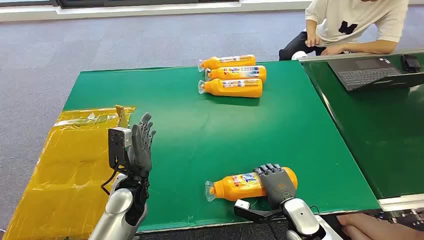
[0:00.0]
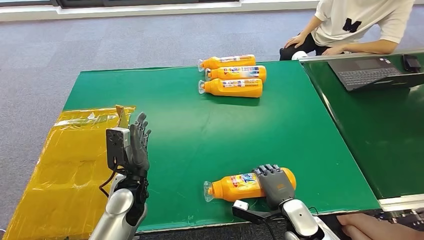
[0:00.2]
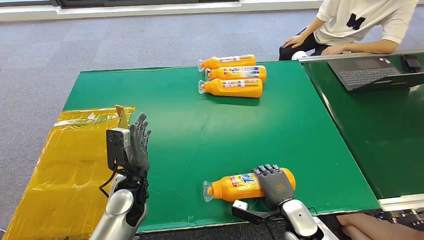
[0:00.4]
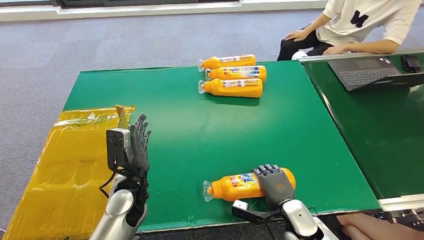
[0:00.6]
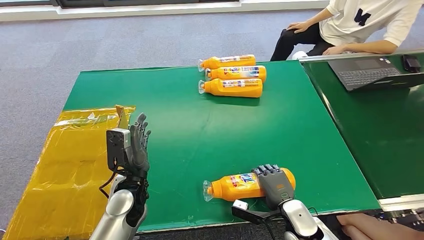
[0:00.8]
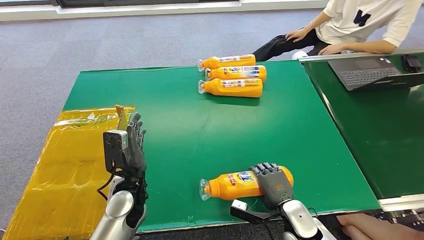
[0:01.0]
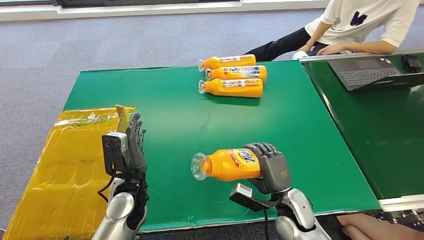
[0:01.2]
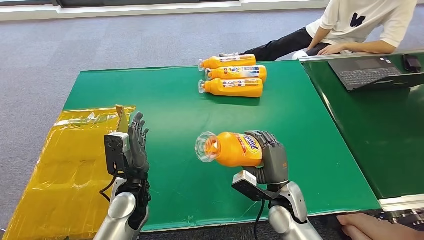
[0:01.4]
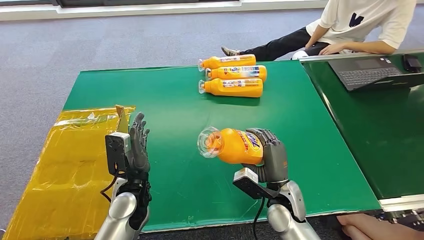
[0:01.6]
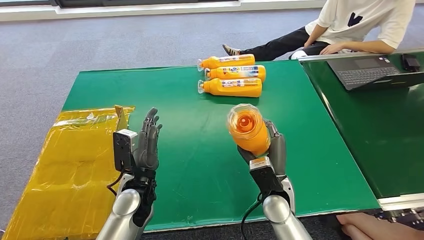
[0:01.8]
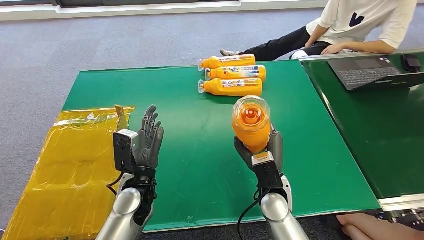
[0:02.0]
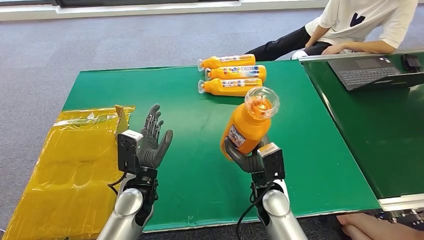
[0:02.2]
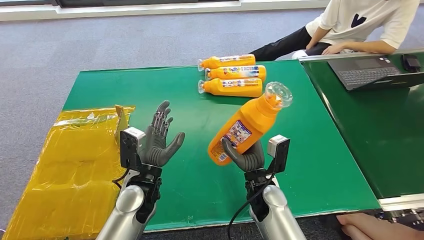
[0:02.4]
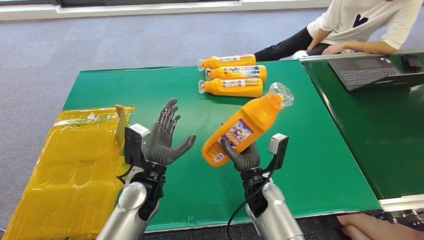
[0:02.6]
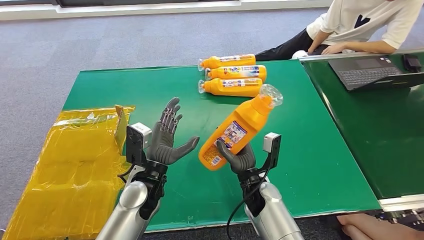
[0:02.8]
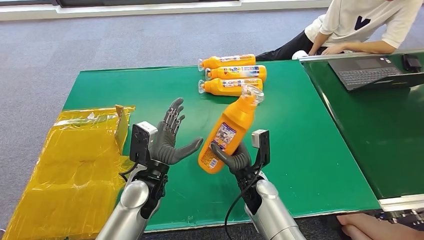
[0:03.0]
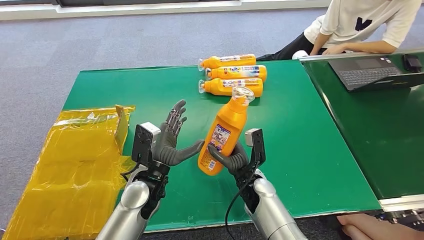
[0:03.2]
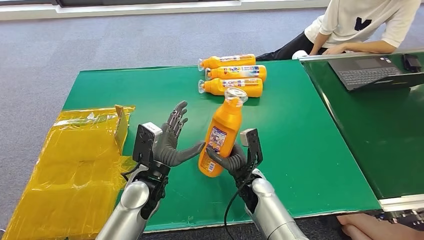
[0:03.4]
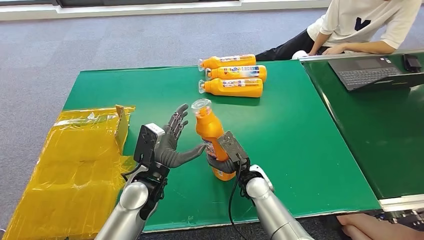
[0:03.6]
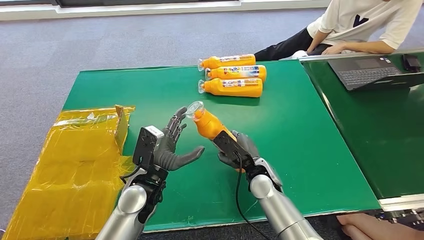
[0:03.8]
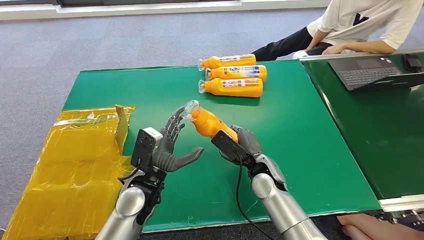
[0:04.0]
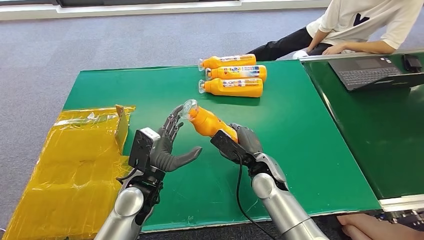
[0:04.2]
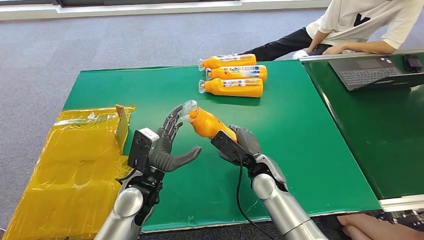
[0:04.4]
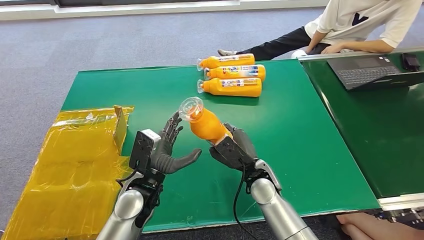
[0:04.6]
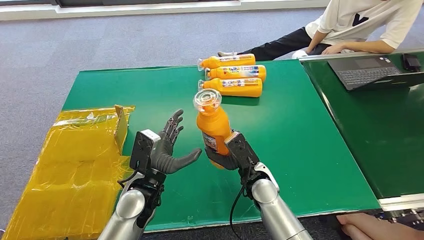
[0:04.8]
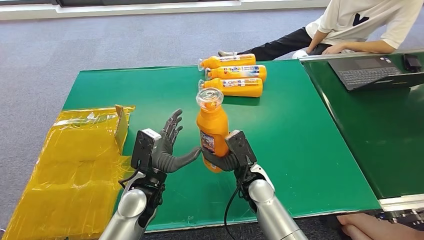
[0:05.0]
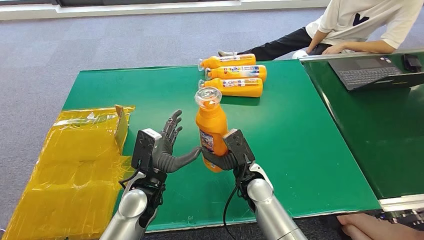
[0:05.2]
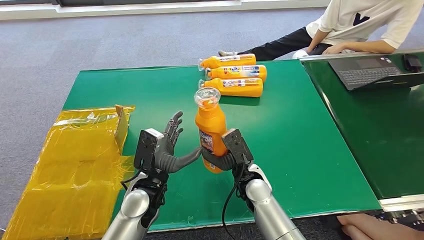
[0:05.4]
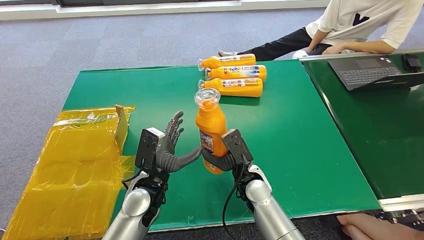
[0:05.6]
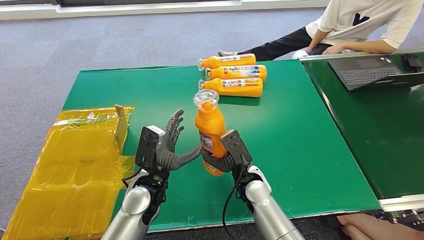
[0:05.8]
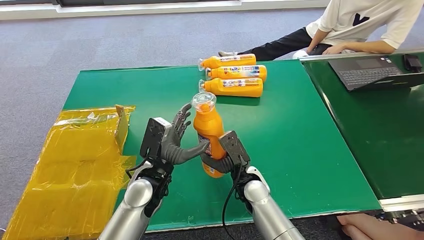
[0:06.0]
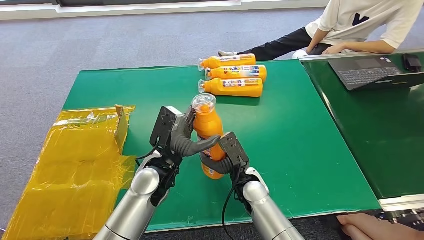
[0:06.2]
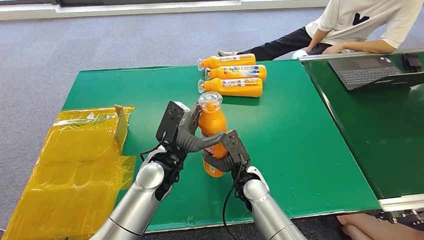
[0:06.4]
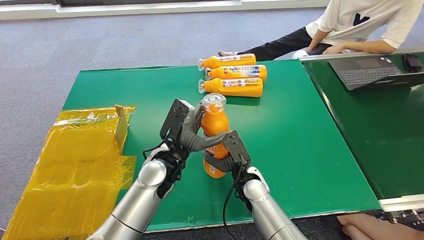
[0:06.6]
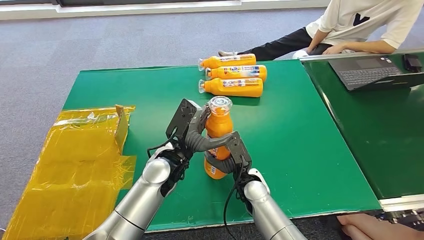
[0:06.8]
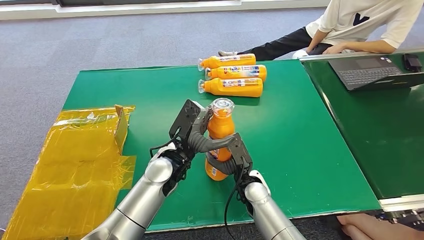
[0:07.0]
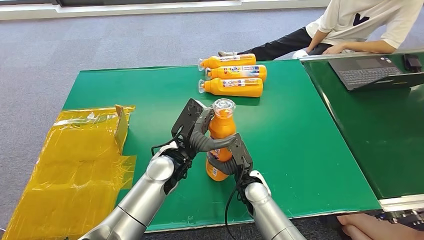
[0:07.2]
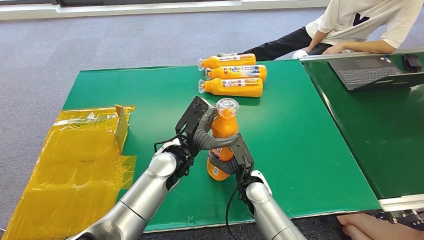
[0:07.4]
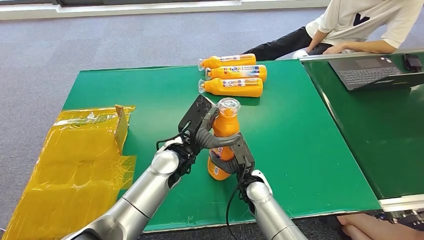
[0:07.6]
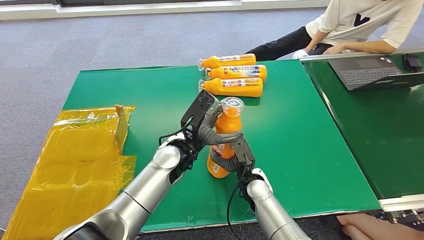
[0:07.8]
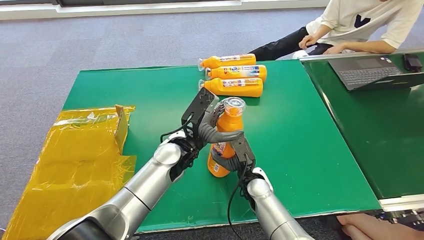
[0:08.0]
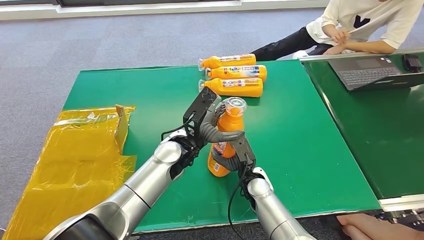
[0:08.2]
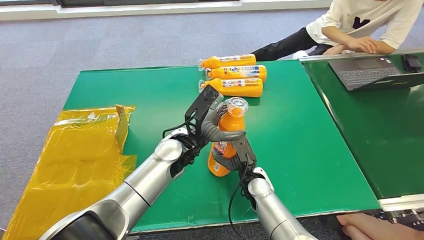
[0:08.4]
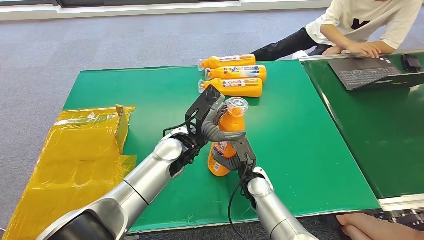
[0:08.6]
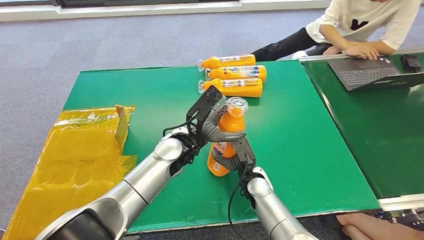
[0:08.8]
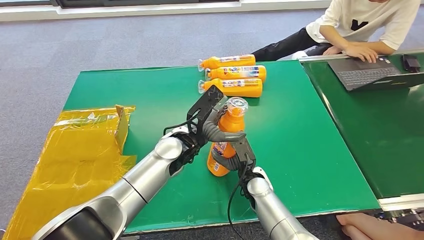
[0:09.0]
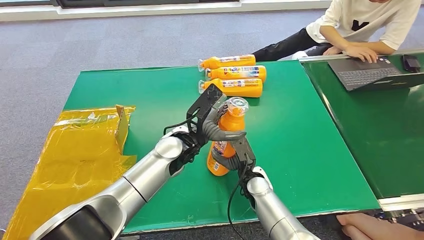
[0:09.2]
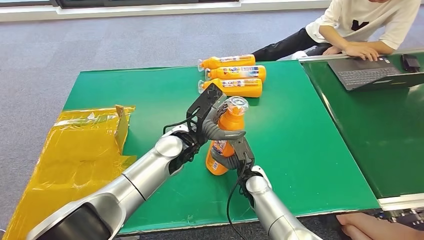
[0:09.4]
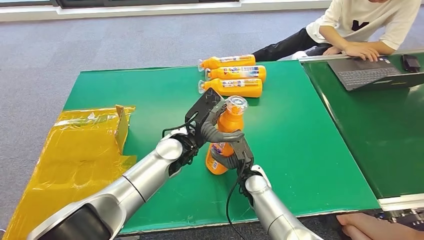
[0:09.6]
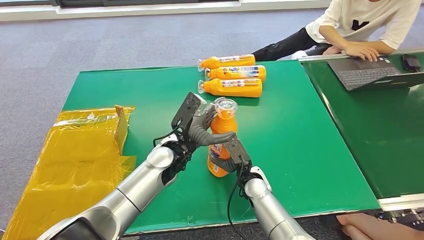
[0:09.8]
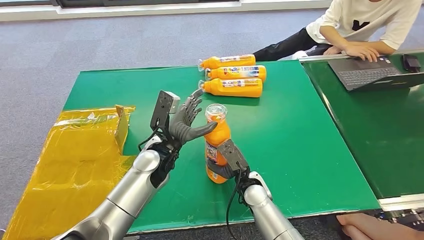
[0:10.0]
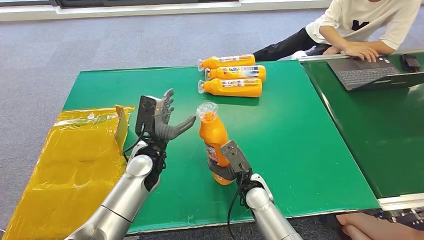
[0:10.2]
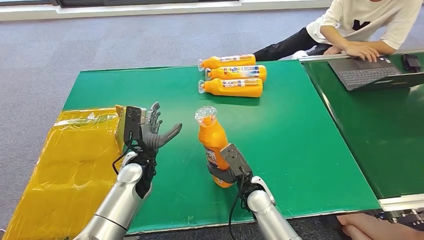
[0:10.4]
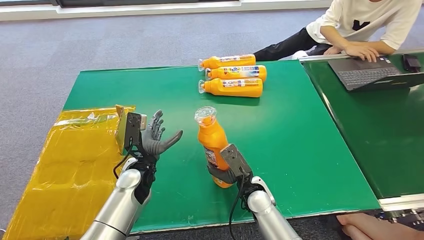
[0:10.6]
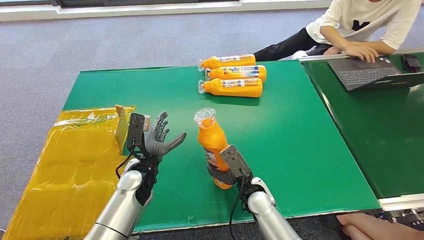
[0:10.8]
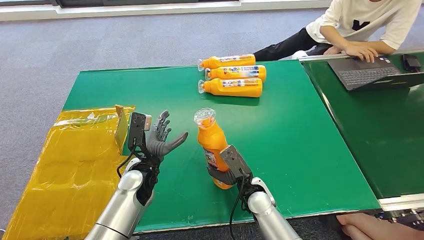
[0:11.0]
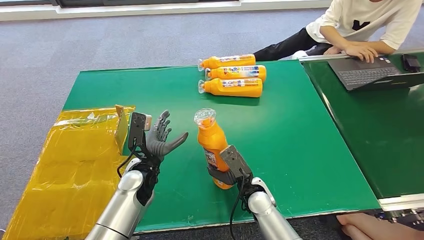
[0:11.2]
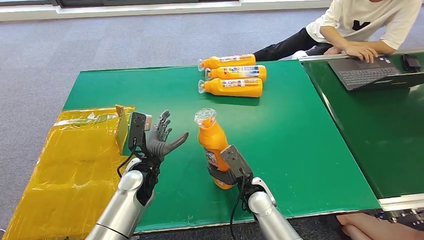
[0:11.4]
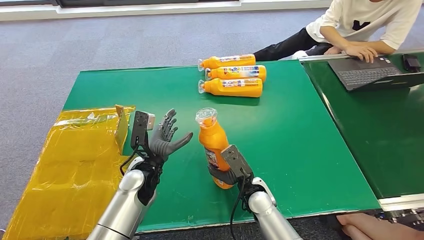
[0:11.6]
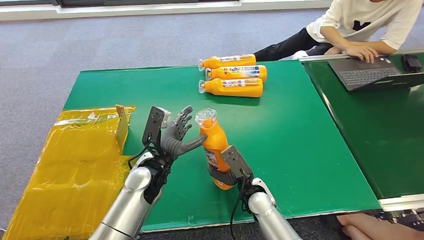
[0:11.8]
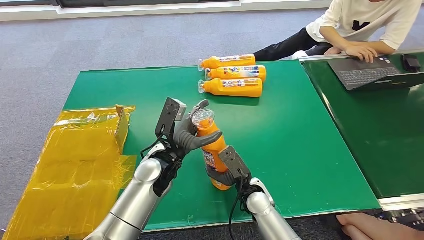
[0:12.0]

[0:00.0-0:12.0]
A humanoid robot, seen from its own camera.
Step, 0:00.0 to 0:01.4: Pick up the bottle from the table.
0:01.6 to 0:03.0: The left hand shifts by roughly 5 cm, while the right hand is displaced to the left by roughly 5 cm.
0:03.0 to 0:04.4: The right hand shifts by roughly 5 cm.
0:04.4 to 0:06.0: The right hand moves about 5 cm.
0:06.0 to 0:07.6: The left hand heads to the right, covering approximately 5 cm.
0:07.6 to 0:09.0: The hands stay close to where they were, moving slightly.
0:09.0 to 0:10.4: The left hand travels to the left and downward by some 15 cm.
0:10.4 to 0:12.0: The left hand travels to the right by about 5 cm.

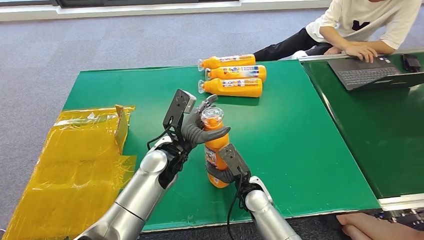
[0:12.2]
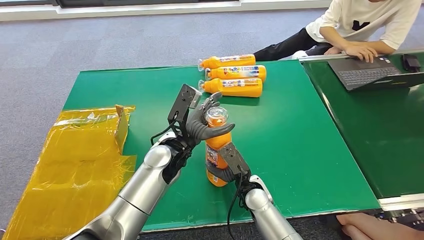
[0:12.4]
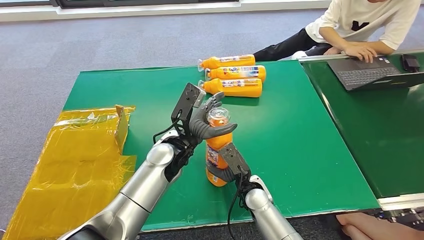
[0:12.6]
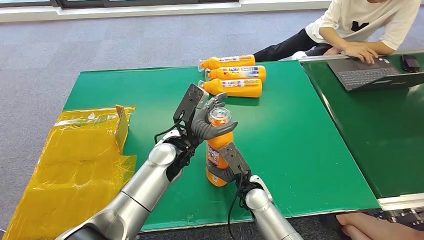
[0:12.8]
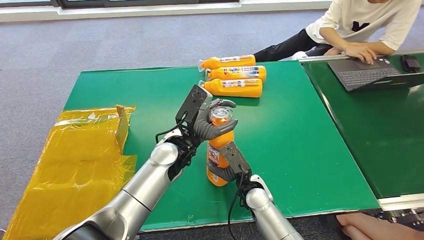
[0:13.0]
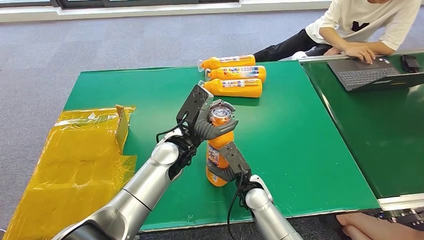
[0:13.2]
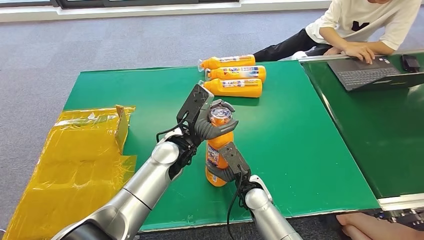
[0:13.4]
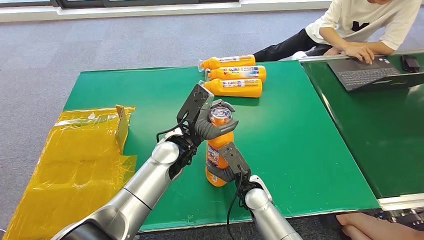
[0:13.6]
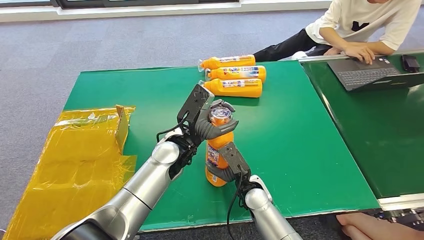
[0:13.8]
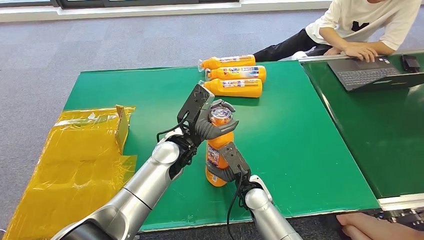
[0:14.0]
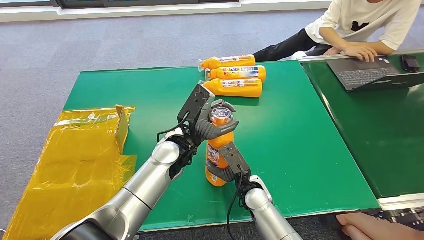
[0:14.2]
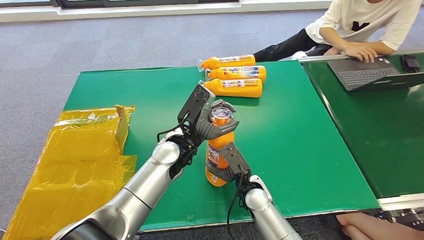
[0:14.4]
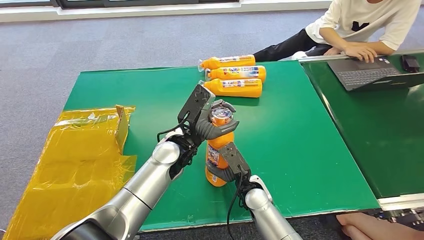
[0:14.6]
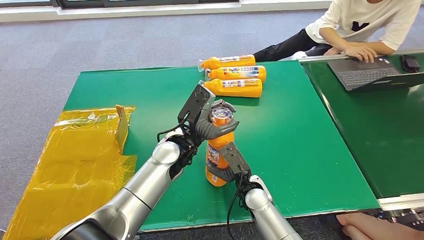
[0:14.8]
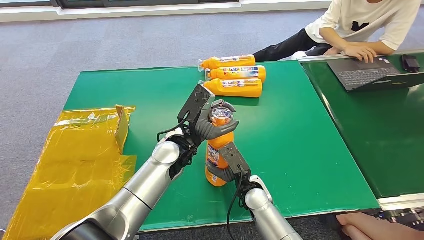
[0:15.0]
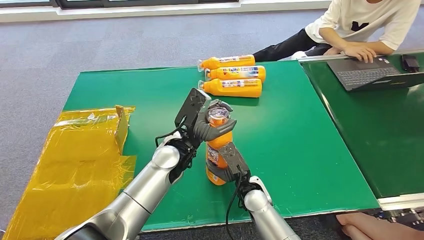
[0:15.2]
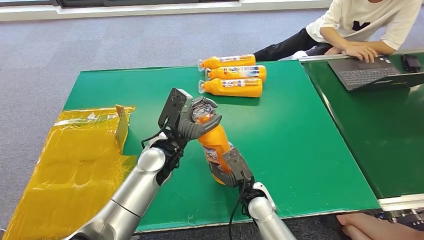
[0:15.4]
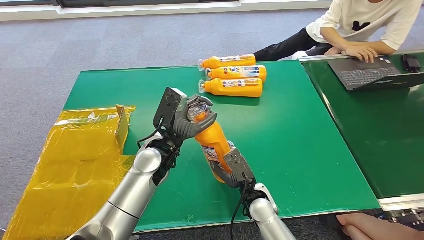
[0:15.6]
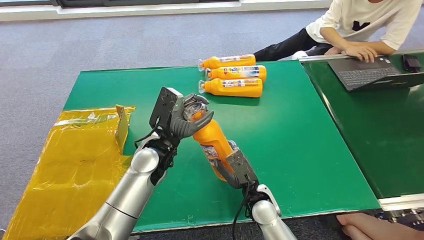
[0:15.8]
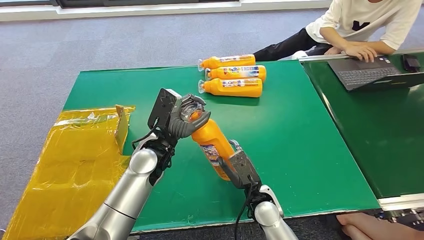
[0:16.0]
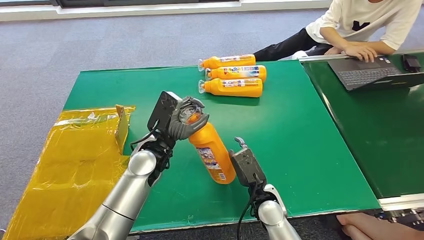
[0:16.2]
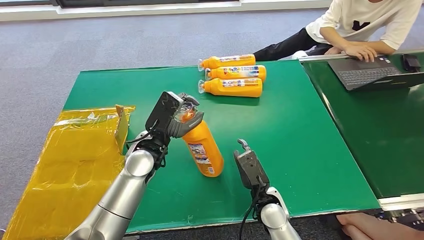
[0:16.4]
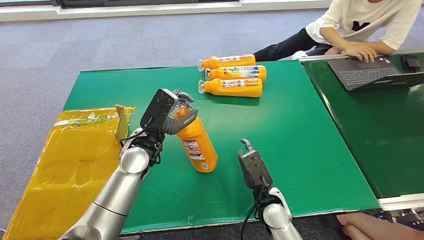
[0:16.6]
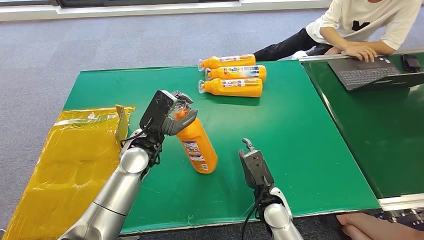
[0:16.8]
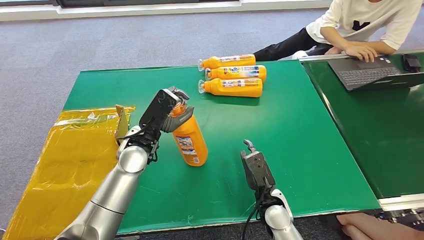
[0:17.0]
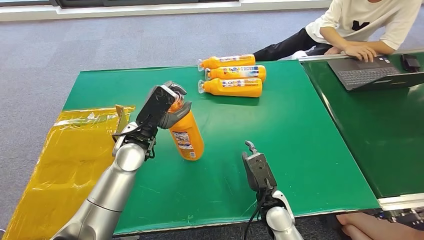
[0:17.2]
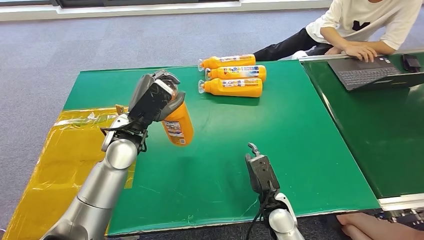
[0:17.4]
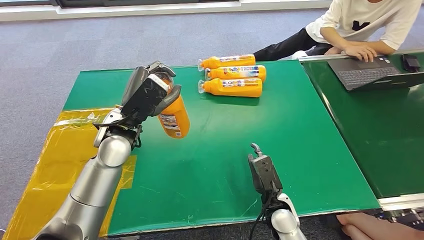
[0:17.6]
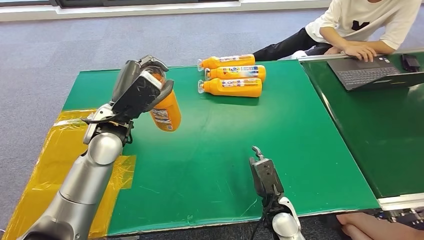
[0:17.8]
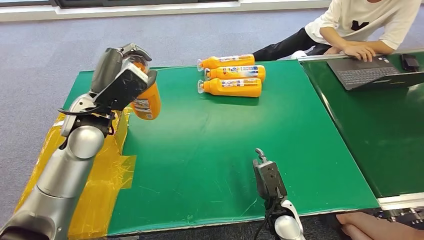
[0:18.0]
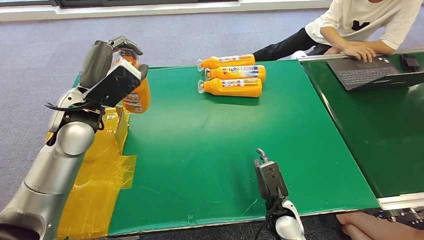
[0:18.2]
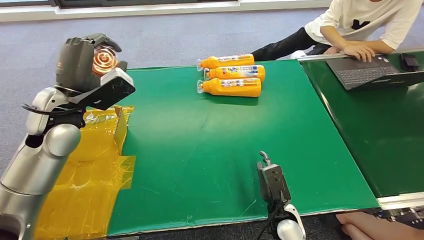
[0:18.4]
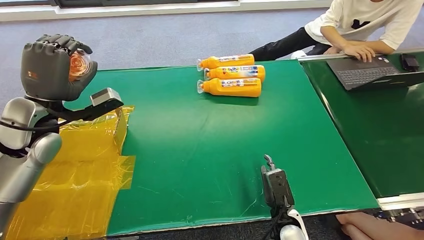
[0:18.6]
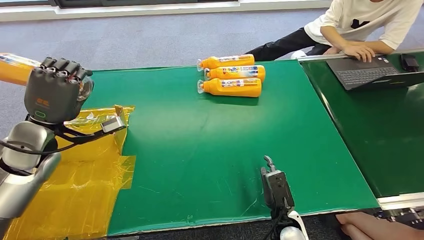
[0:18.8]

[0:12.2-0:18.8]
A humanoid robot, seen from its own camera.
0:12.2 to 0:15.4: The hands make only small movements.
0:15.4 to 0:17.2: The left hand goes about 5 cm to the left.
0:17.2 to 0:18.8: The left hand travels to the left by approximately 20 cm; the right hand ends up some 5 cm from where it was.
